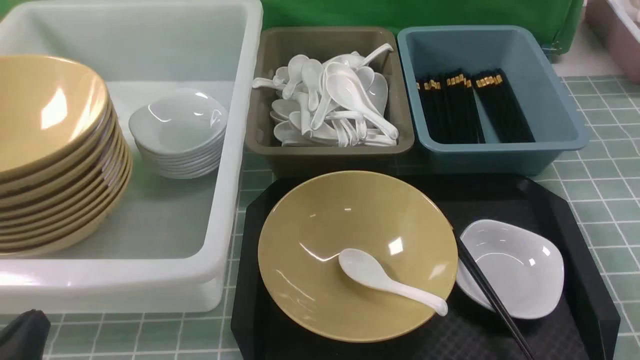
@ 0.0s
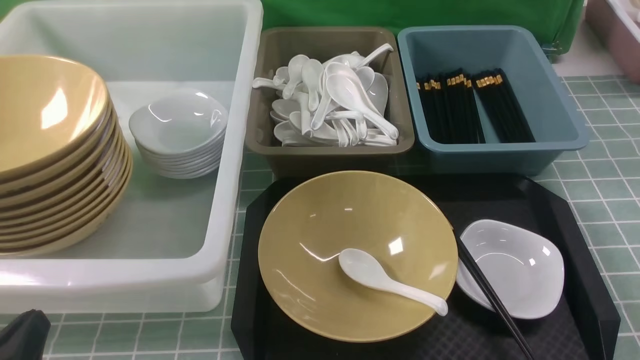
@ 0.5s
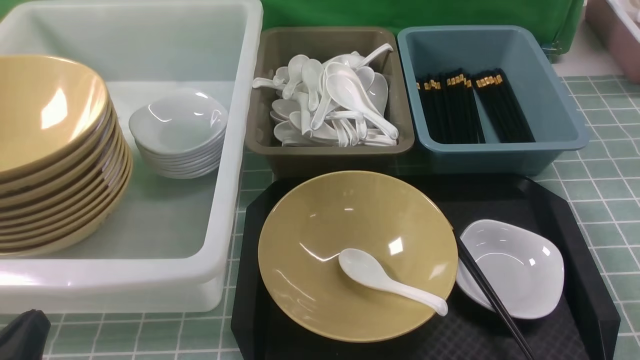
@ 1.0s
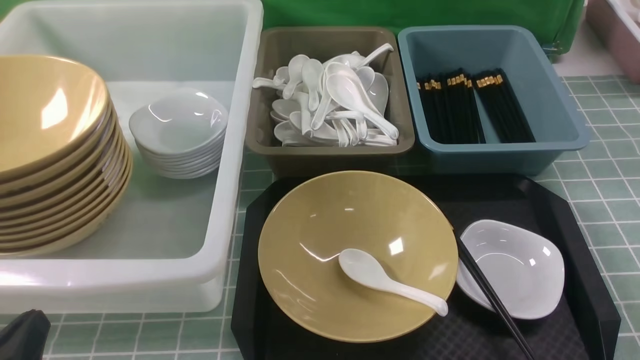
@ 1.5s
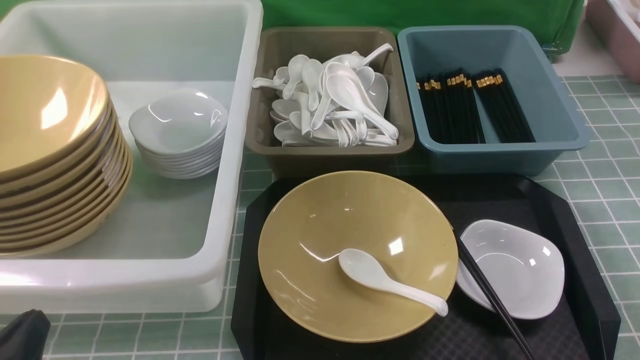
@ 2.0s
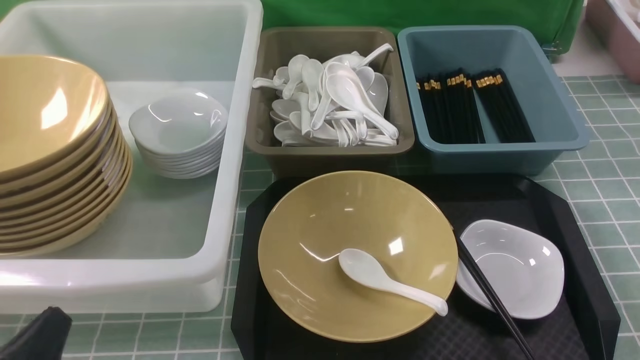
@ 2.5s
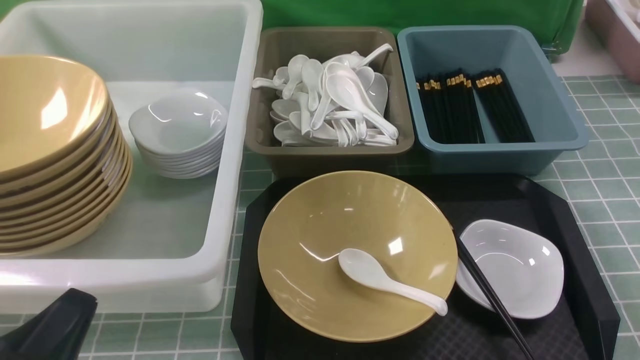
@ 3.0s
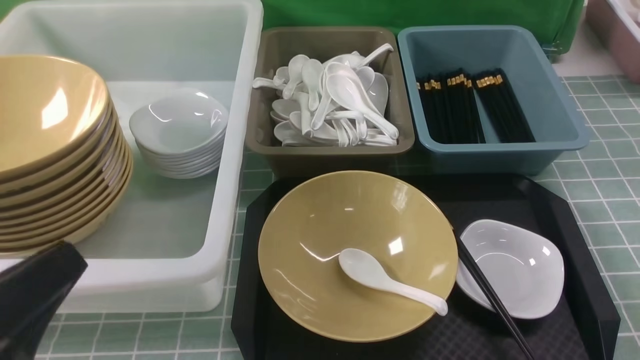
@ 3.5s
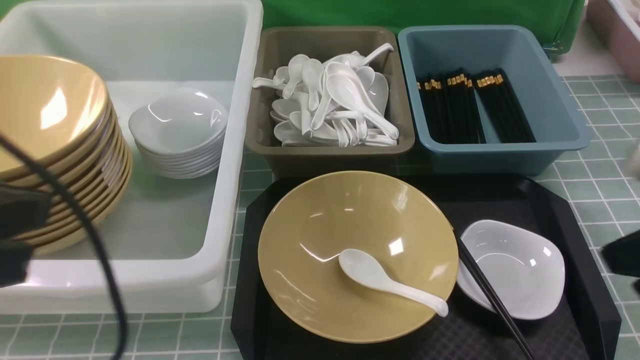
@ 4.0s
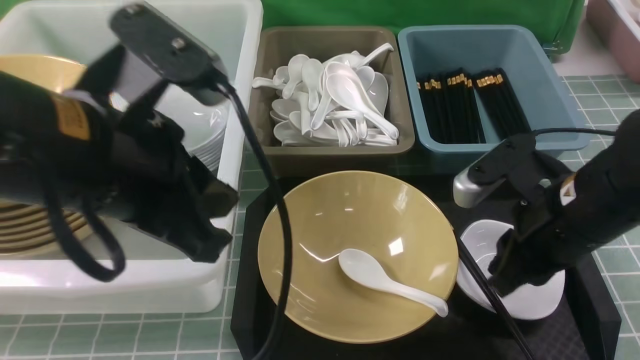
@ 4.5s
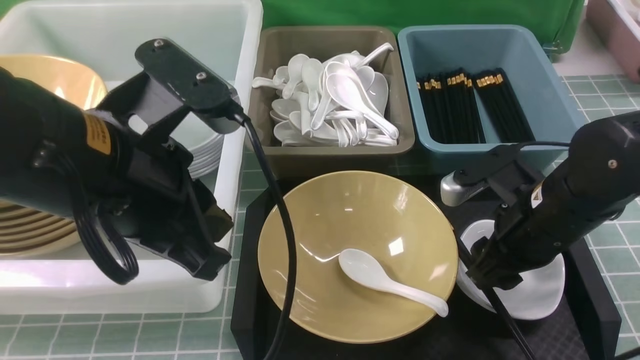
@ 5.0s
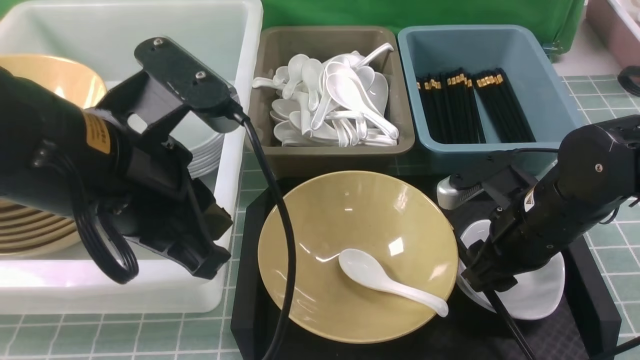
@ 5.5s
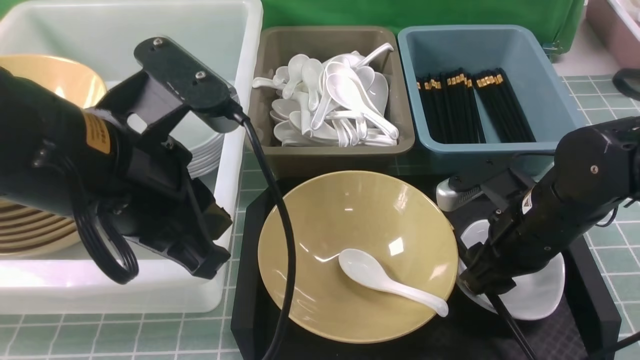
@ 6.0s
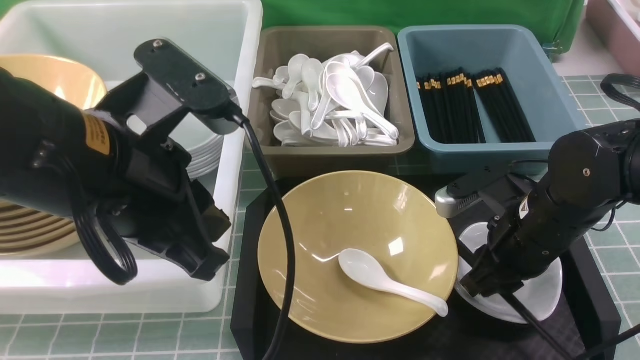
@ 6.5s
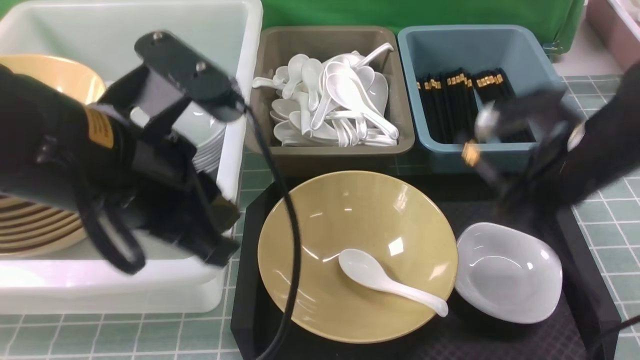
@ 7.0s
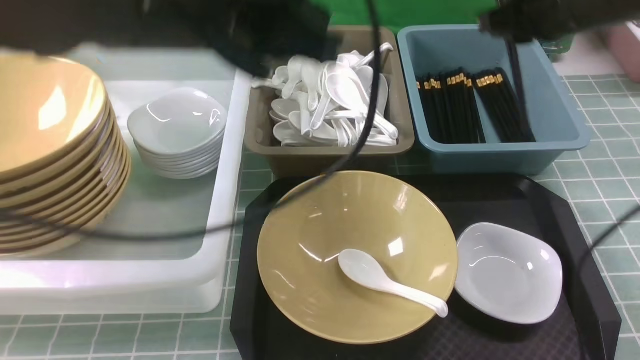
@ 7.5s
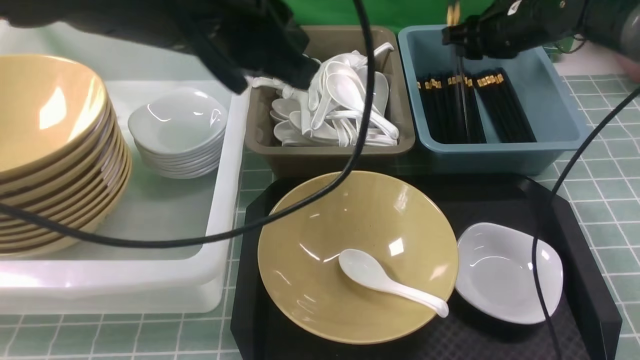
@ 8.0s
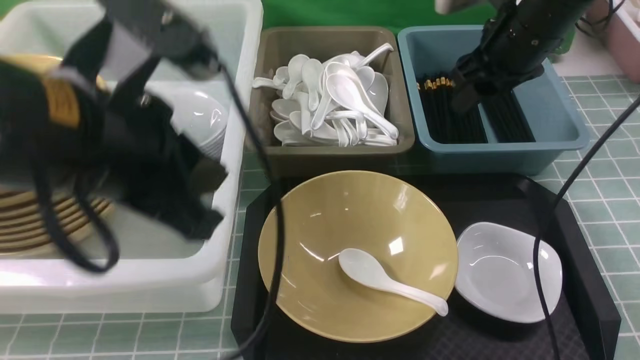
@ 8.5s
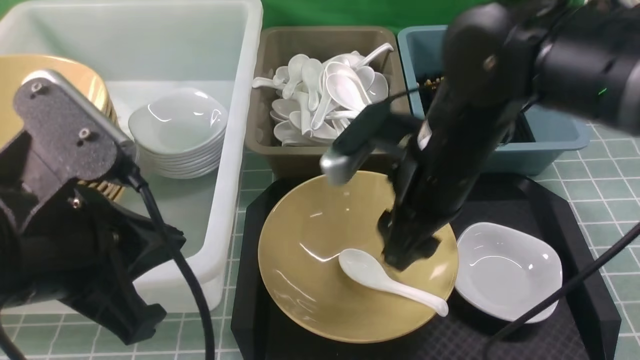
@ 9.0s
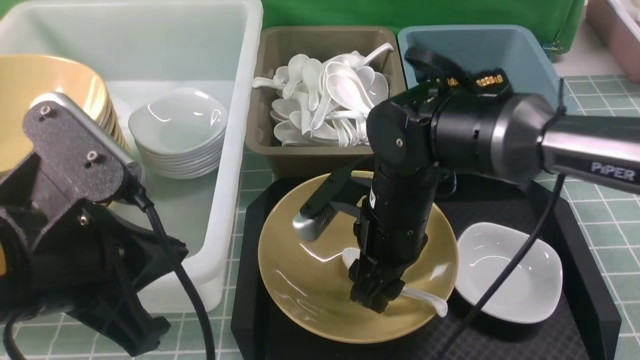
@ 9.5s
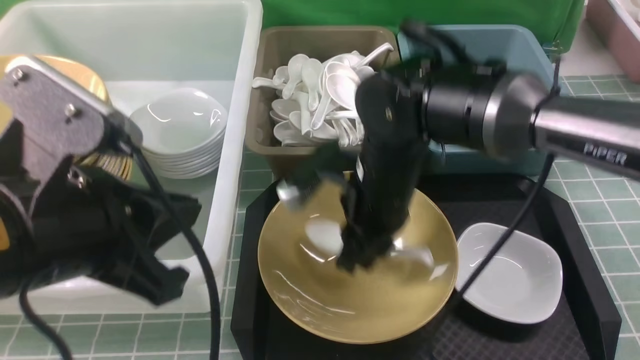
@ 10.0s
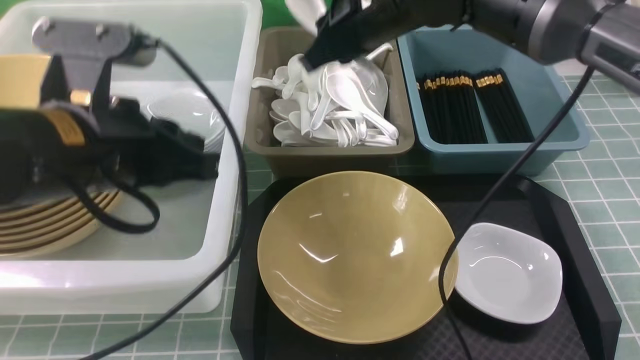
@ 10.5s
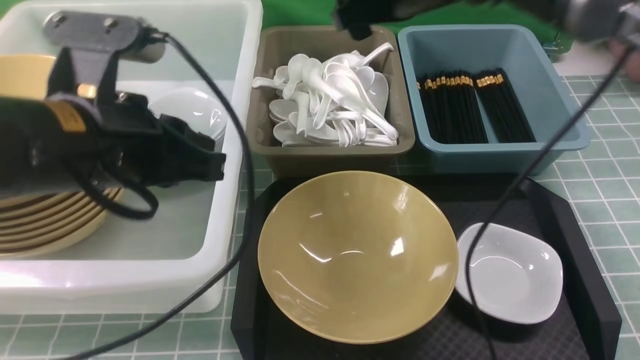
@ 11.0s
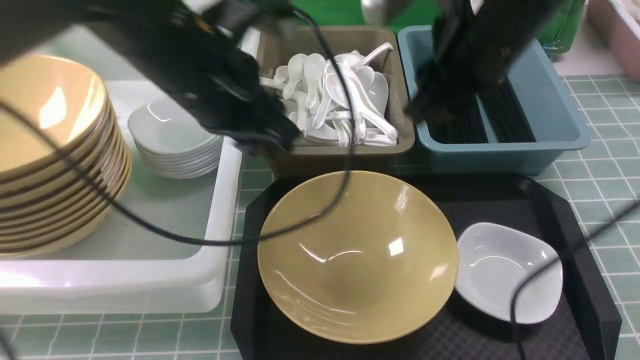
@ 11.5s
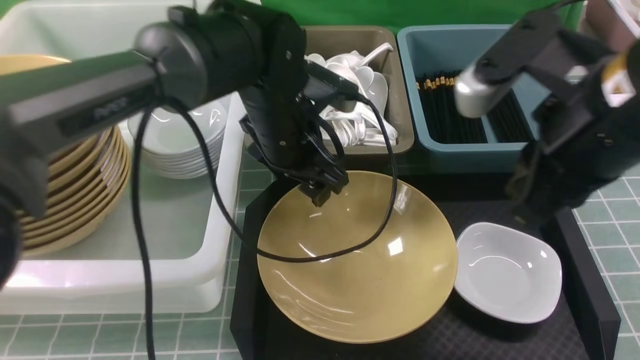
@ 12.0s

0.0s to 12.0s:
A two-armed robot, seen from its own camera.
Task of the whole recording: on blue table put chopsticks spoon bowls plates into blue grey white boxes.
Step, 0.0s to 6.5s: use the right arm to grab the chopsticks.
Step, 7.5s to 8.0s: use the right arm to put the chopsticks into the small storage box on the right.
Step, 8.5s to 10.0s: use the right arm to grab the soup spoon in the middle.
Step, 10.5s to 11.0s: use the right arm to put the soup spoon into the small storage box in the middle.
0.0s to 2.0s: Both grippers stay put.
2.0s to 4.0s: The right gripper shifts approximately 20 cm upward, forward and to the left, and closes its fingers. Meanwhile the left gripper shifts some 20 cm upward.
4.0s to 6.0s: The right gripper goes approximately 20 cm downward, forward and to the left, and opens its fingers; the left gripper heads to the right and forward, covering approximately 10 cm.
6.0s to 8.0s: The left gripper is displaced upward and forward by roughly 10 cm, while the right gripper travels forward and upward by approximately 25 cm, and closes, then opens again.
8.0s to 10.0s: The right gripper shifts roughly 25 cm to the left and backward; the left gripper shifts roughly 15 cm backward, downward and to the left.
10.0s to 12.0s: The left gripper travels forward, to the right and downward by about 25 cm, and opens; the right gripper heads to the right, upward and backward, covering roughly 20 cm, and opens and closes again.

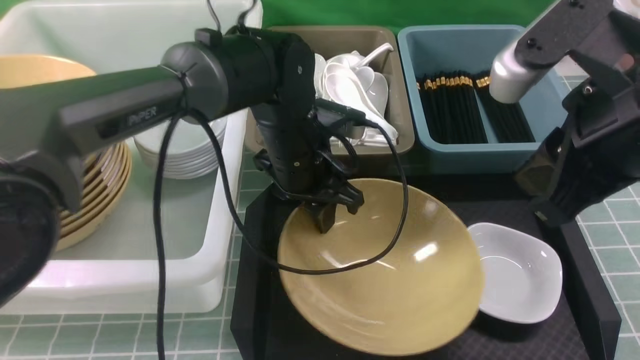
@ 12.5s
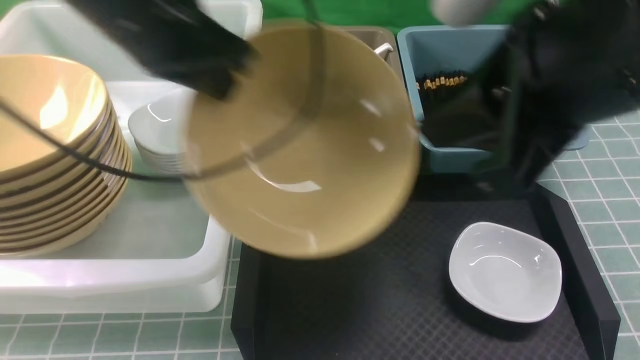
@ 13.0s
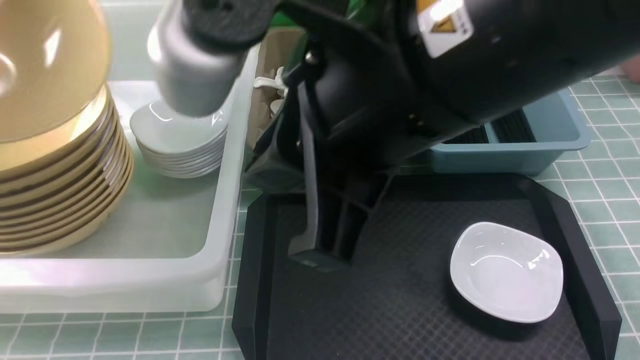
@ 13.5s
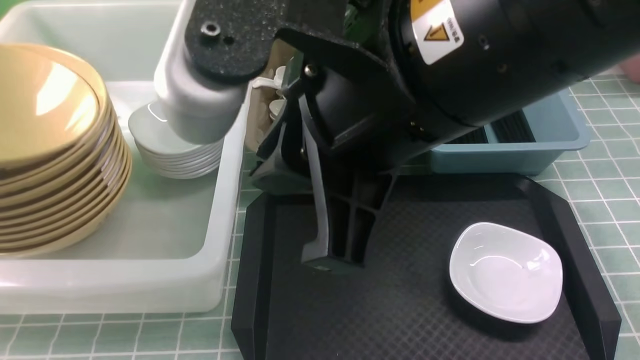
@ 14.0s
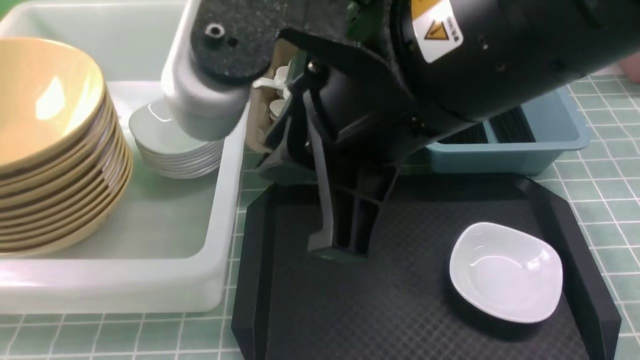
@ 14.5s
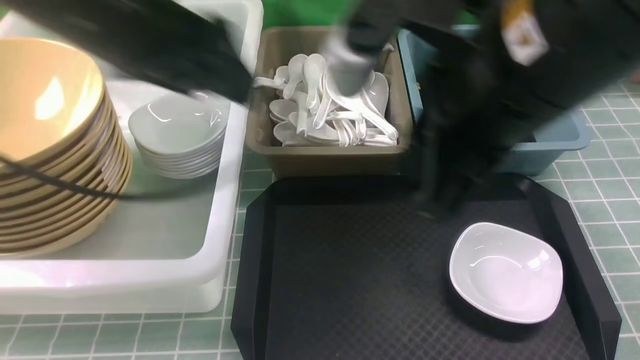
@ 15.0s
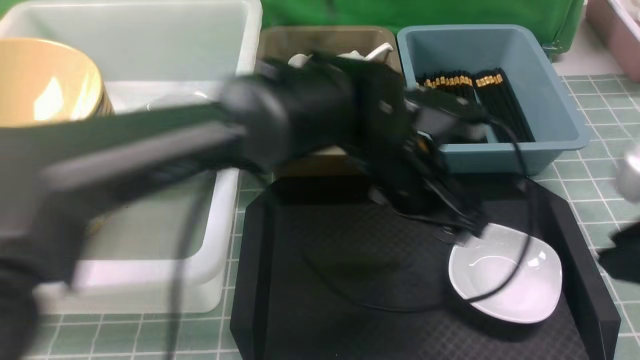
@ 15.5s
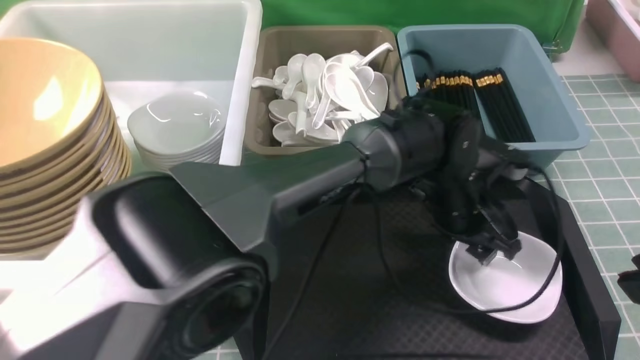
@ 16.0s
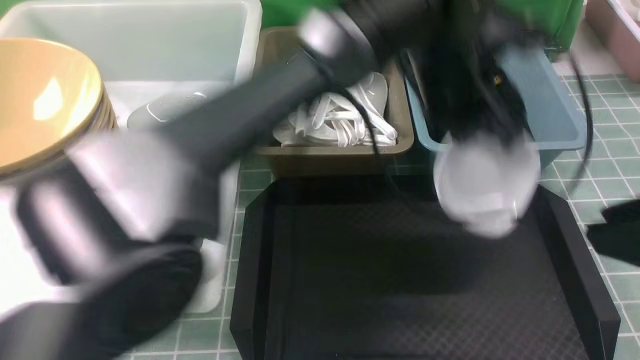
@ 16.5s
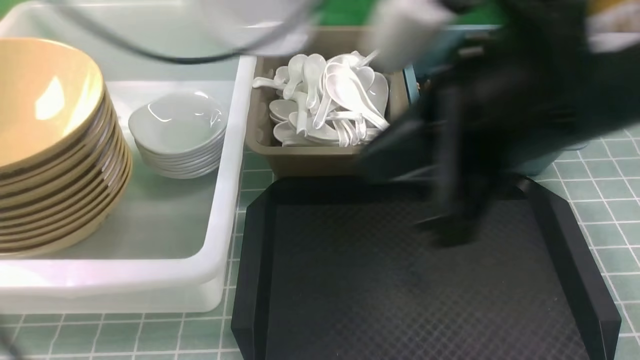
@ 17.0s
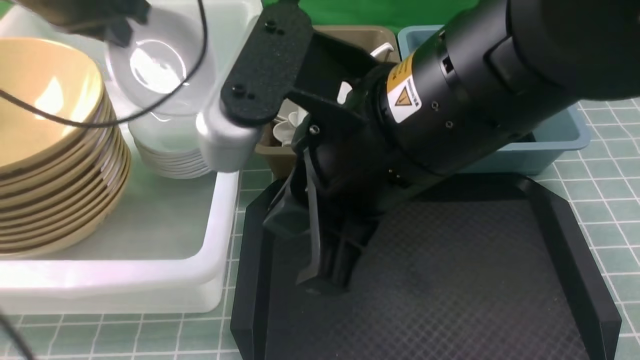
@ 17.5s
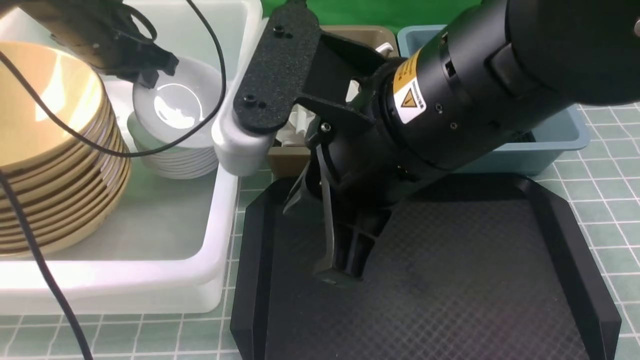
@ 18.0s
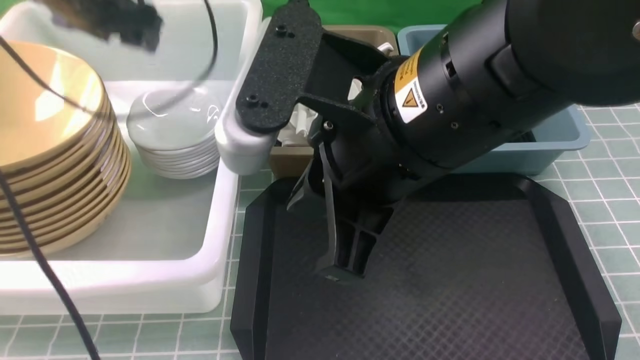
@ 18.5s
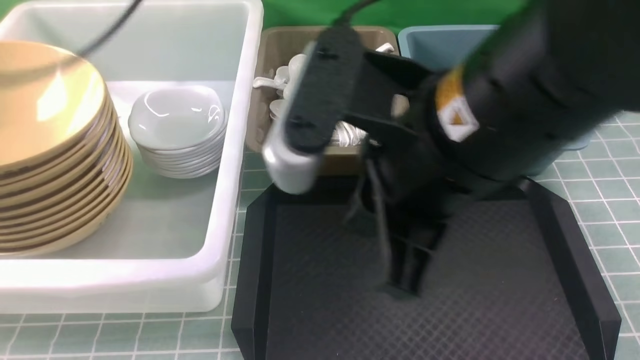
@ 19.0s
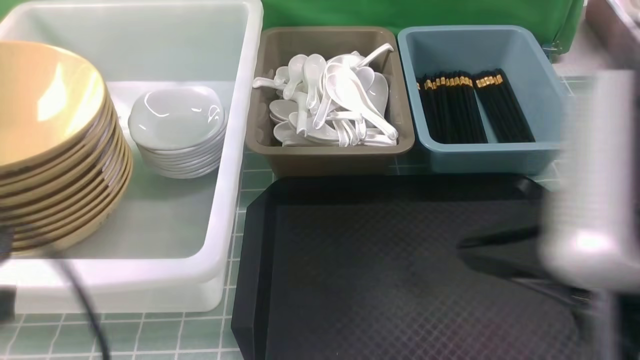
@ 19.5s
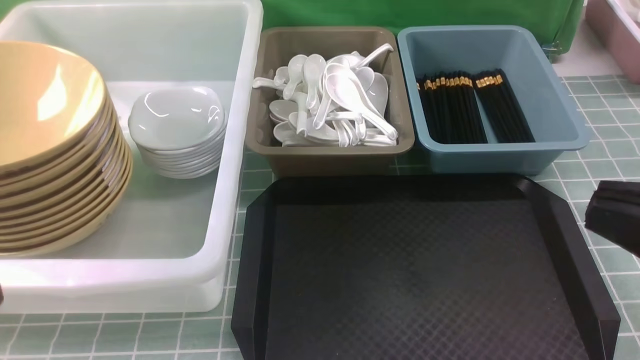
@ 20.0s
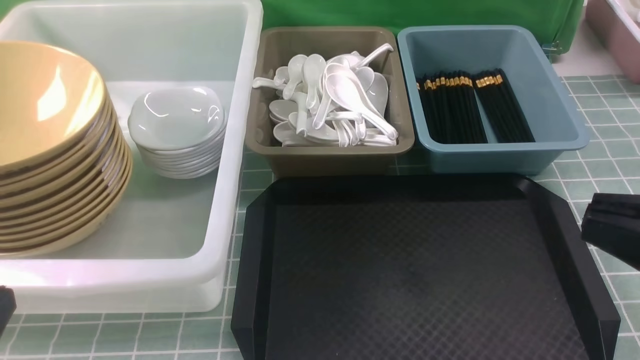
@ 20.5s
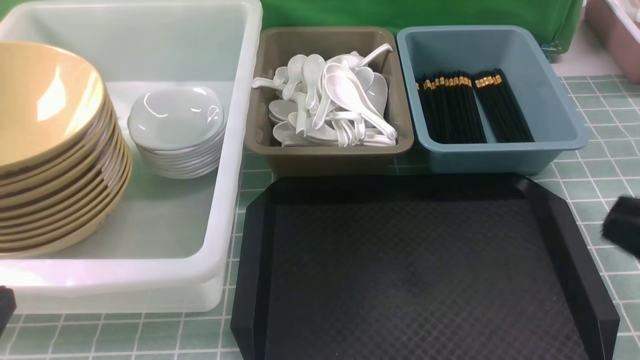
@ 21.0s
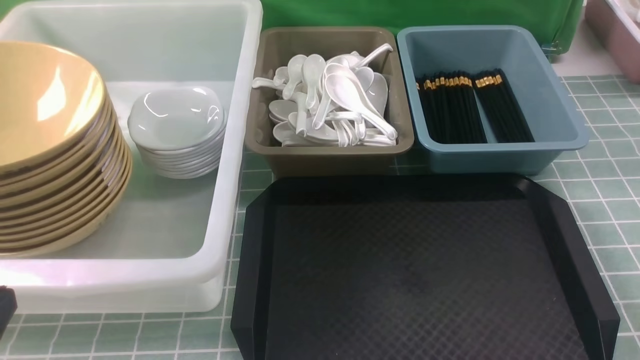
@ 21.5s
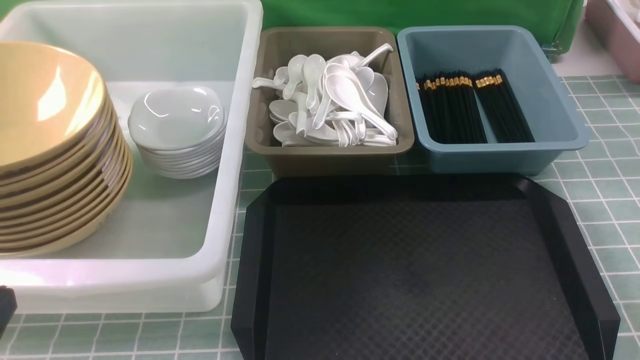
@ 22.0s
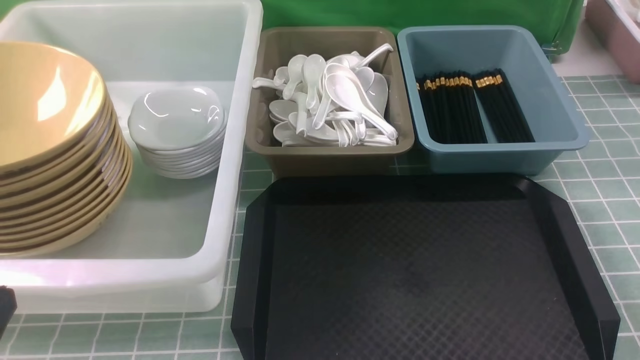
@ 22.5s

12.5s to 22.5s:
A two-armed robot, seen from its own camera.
Task of the whole recording: on blue table put chopsticks spoon bowls plates into blue grey white boxes.
Step, 13.0s to 14.0s: use the left arm to put the noodle bowl into the large storage box on the left.
Step, 14.5s to 16.0s: use the left arm to grab the plate.
Step, 16.5s to 18.0s: use the left arm to put the plate into the large storage box on the left.
12.5s to 14.5s: The right gripper goes about 15 cm to the left, while the left gripper travels to the left and upward by about 35 cm, and opens its fingers.
14.5s to 16.5s: The left gripper travels to the right by roughly 40 cm, and closes. The right gripper moves to the right, roughly 15 cm.
16.5s to 18.5s: The left gripper shifts approximately 30 cm to the left, and opens; the right gripper shifts some 20 cm to the left and forward.
18.5s to 20.5s: The right gripper goes some 20 cm to the right and backward. Meanwhile the left gripper heads backward, covering approximately 35 cm, and closes.
20.5s to 22.5s: The right gripper shifts some 20 cm downward and to the right.
